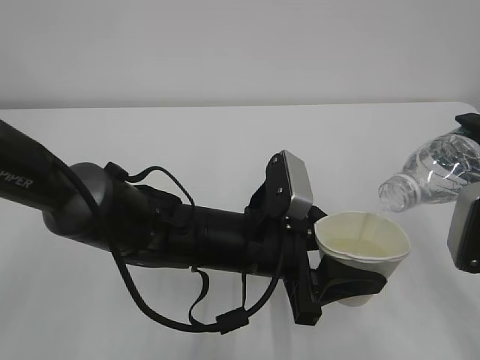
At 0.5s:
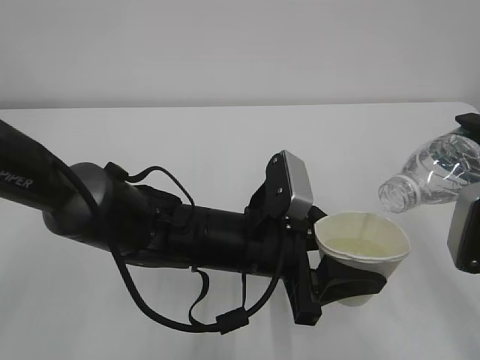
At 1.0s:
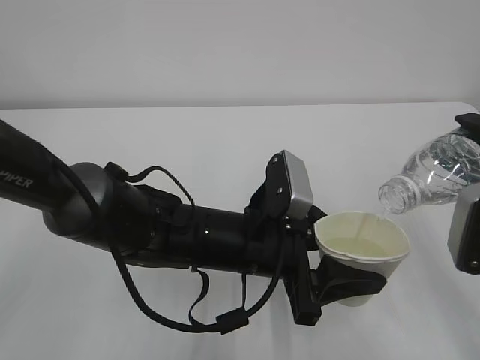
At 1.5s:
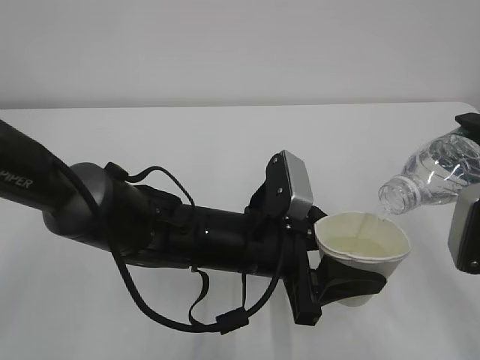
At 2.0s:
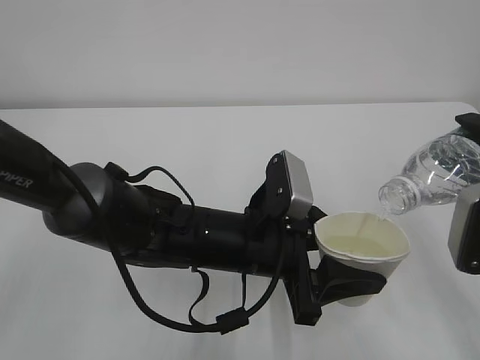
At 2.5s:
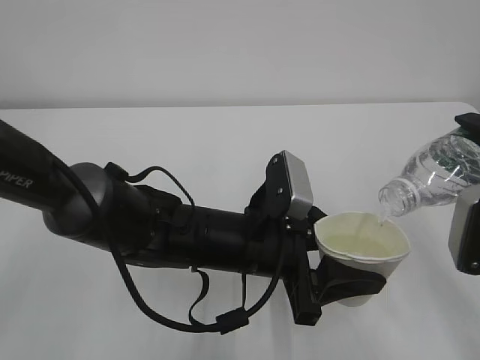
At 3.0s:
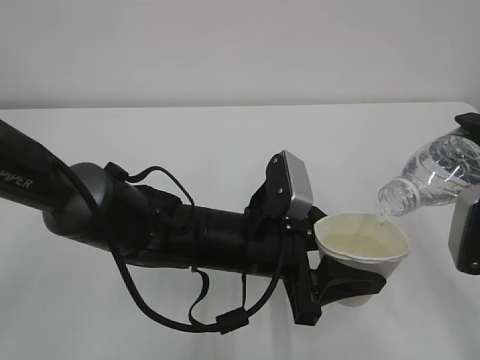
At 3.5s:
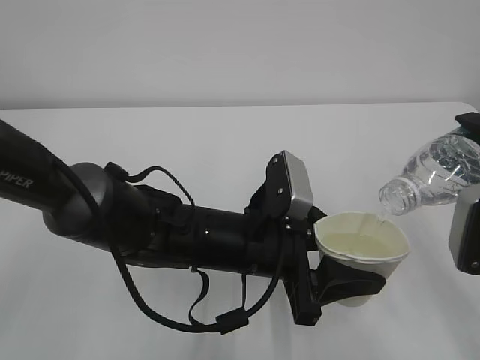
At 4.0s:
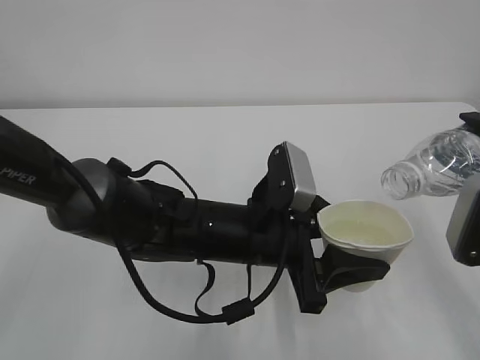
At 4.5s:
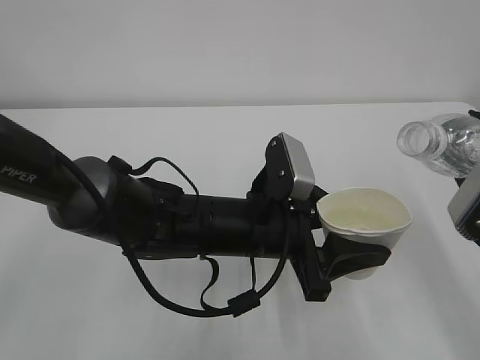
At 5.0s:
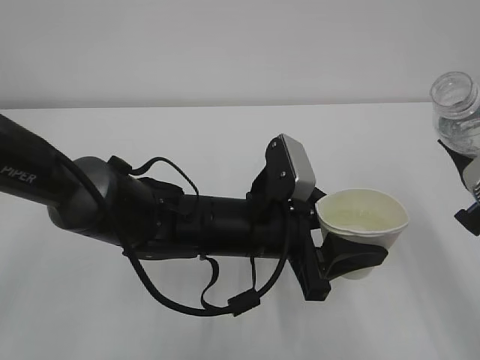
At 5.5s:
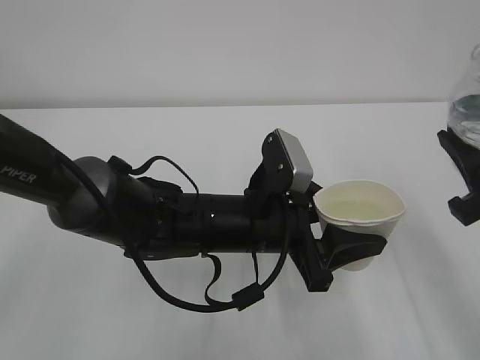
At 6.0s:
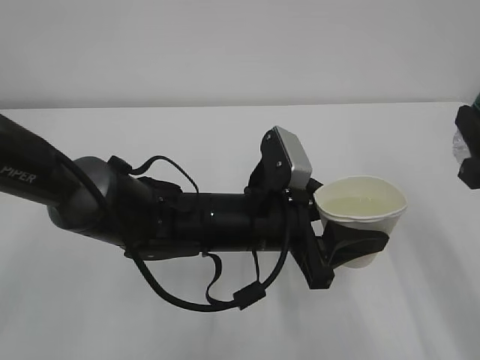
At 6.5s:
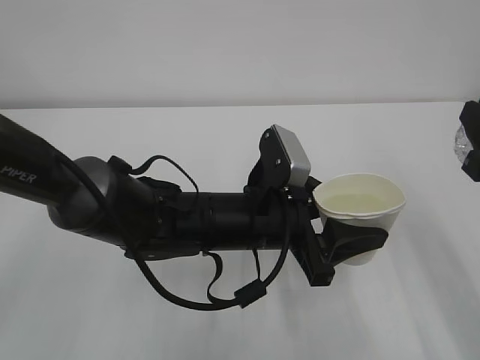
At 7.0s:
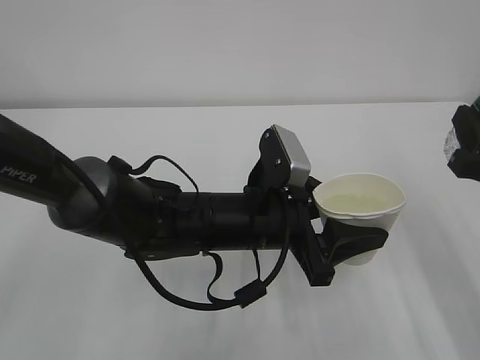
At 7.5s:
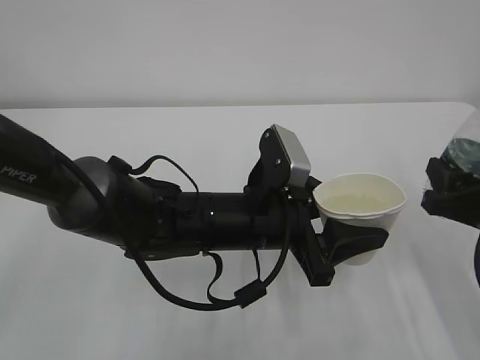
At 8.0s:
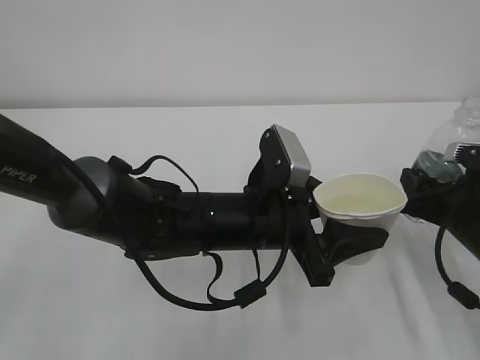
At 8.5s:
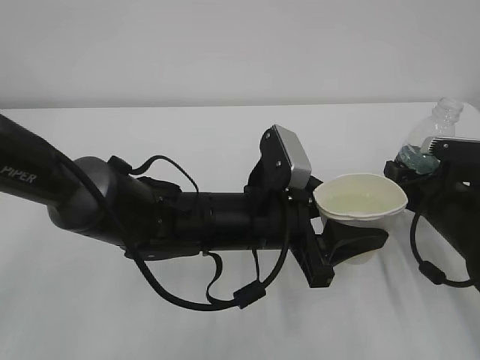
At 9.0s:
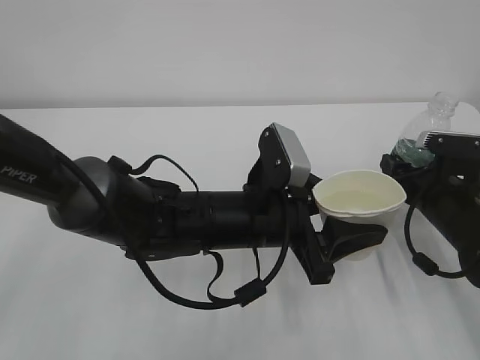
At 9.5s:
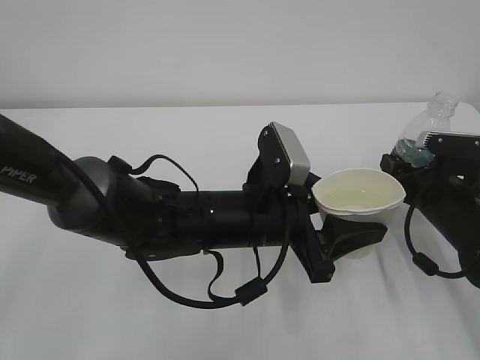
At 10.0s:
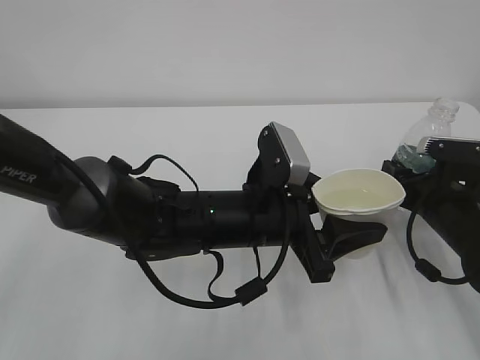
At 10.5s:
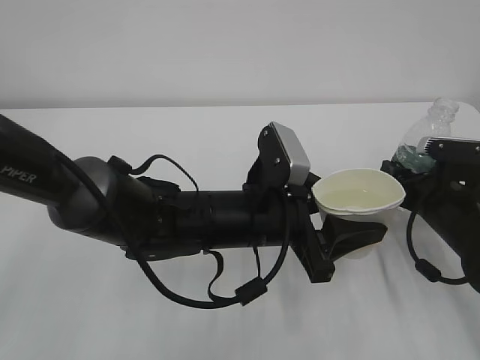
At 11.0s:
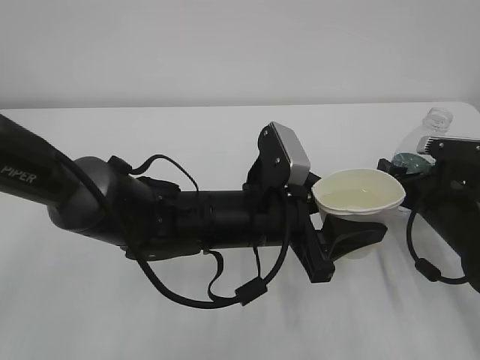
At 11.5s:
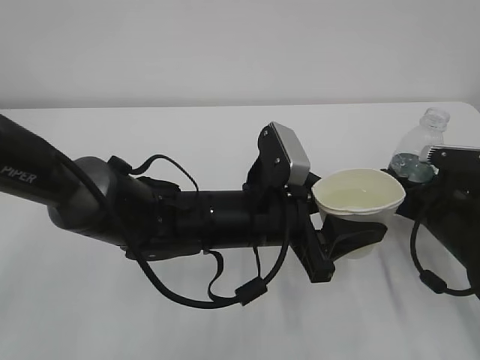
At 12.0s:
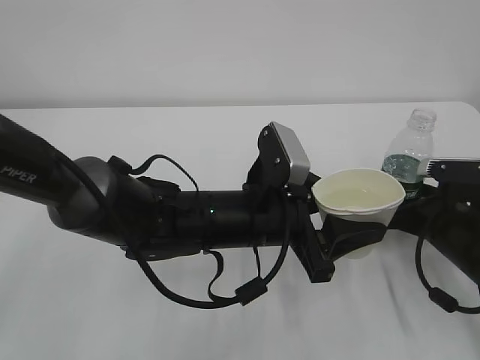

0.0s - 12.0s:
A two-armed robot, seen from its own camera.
0.0s - 2.0s: The two grippers keep their place.
2.0s - 4.0s: The grippers stay close to where they were, moving slightly.
6.0s - 8.0s: The right gripper is displaced downward and forward by roughly 15 cm.
8.0s - 10.0s: The right gripper moves approximately 5 cm.
10.0s - 12.0s: The right gripper opens.

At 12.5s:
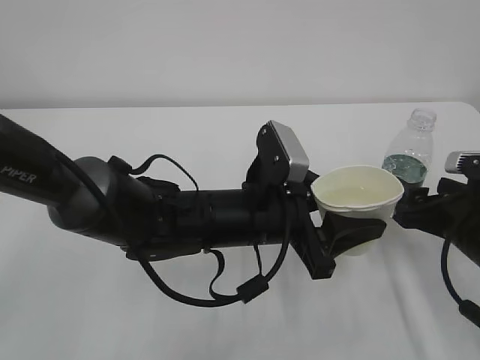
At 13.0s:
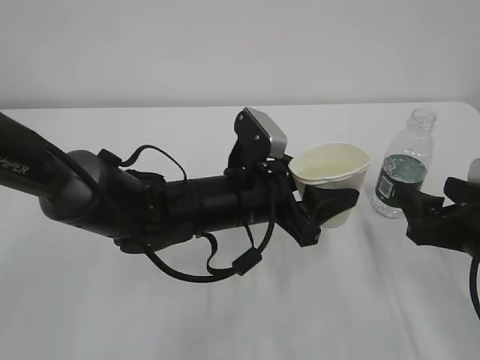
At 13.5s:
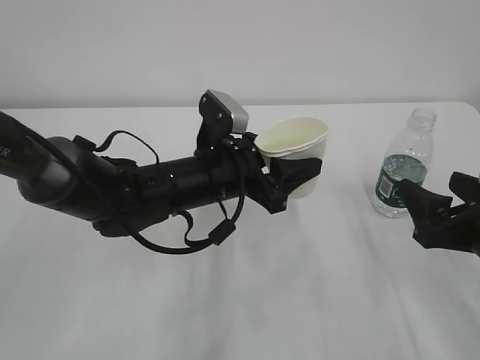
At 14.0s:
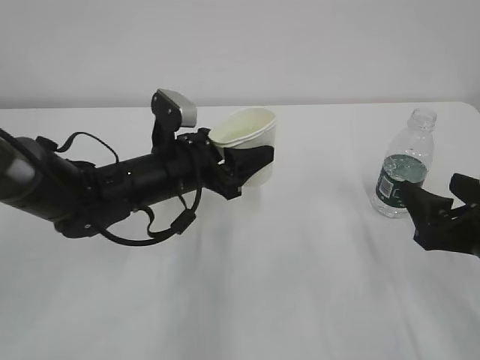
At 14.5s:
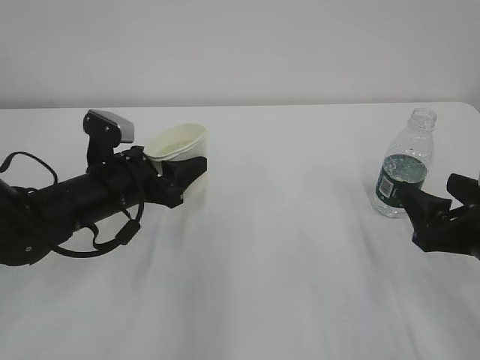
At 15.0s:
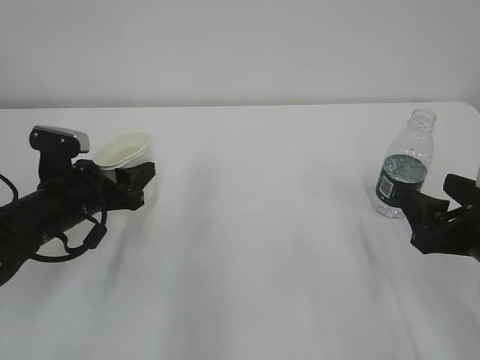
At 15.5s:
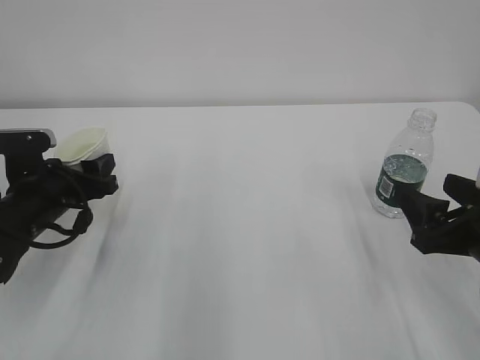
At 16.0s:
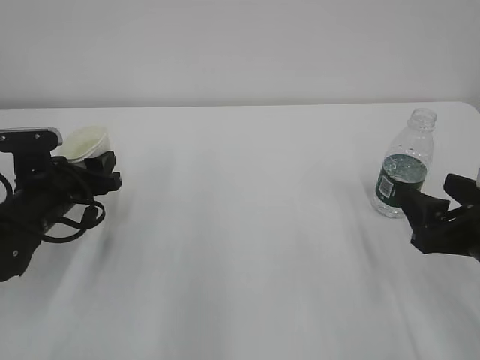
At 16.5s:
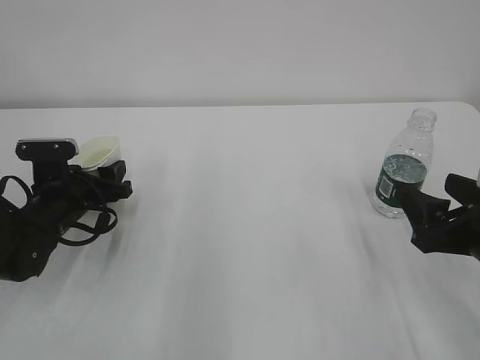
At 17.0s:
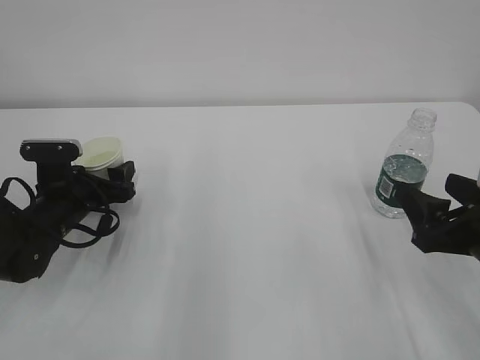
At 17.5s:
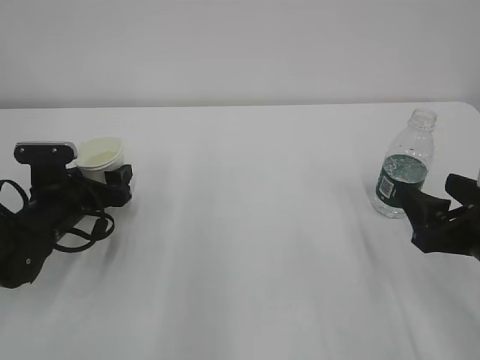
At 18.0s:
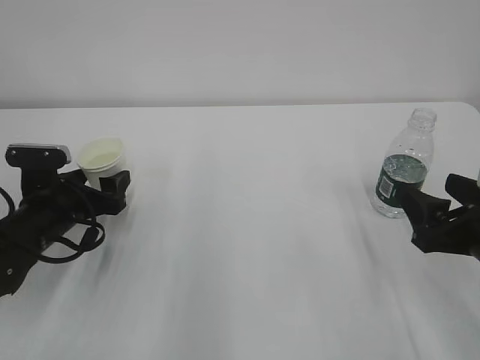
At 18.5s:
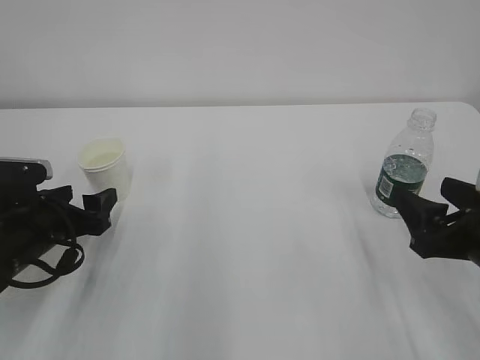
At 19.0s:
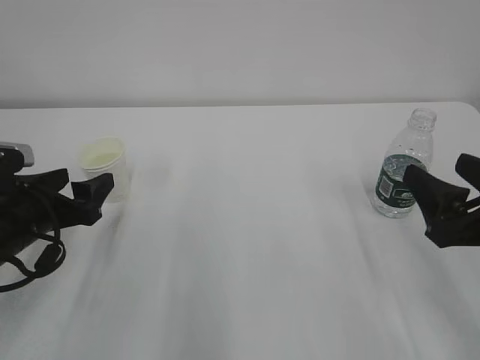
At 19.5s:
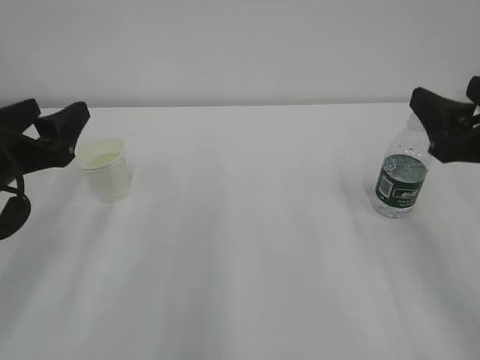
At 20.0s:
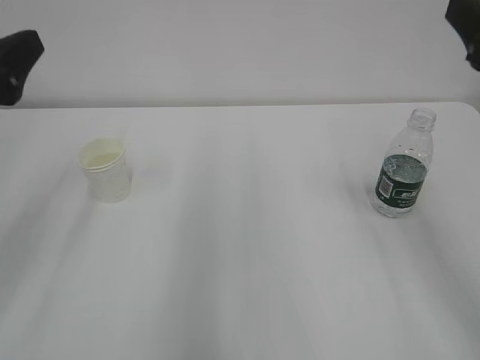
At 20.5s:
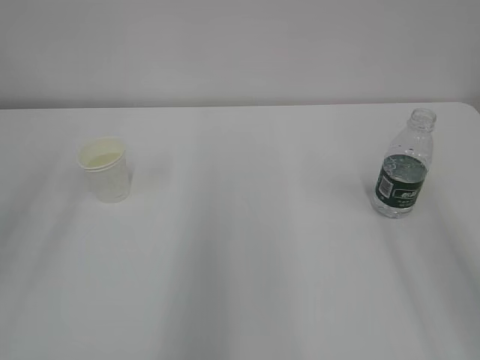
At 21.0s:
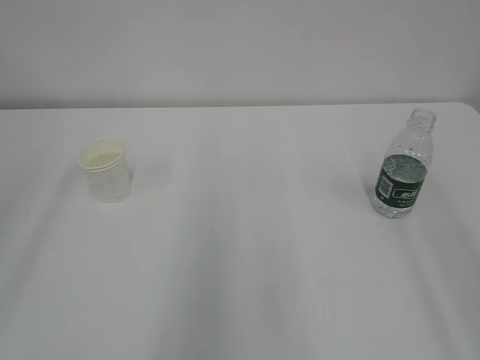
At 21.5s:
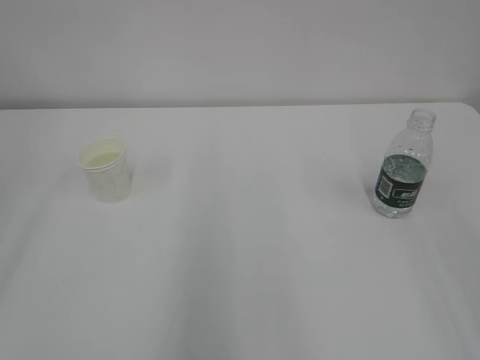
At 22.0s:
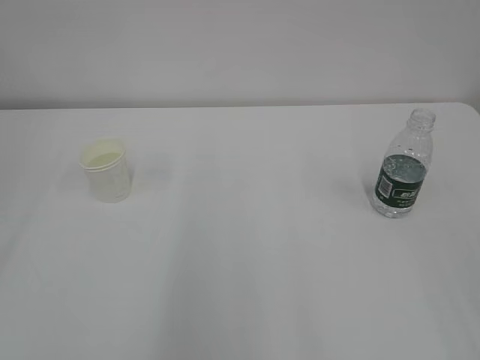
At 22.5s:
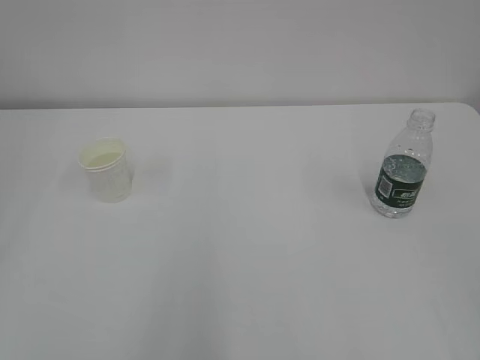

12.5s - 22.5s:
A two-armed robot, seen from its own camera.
12.5s - 14.5s: The left gripper is displaced to the left and forward by roughly 20 cm, while the right gripper ends up about 5 cm from where it was.
14.5s - 16.5s: The left gripper goes roughly 5 cm to the left.
16.5s - 18.5s: The left gripper heads backward, covering about 5 cm, and opens.
18.5s - 20.5s: Both grippers move upward, about 25 cm.
